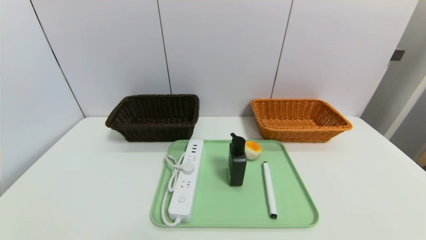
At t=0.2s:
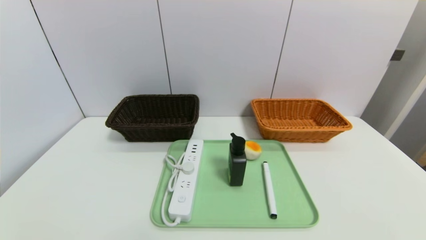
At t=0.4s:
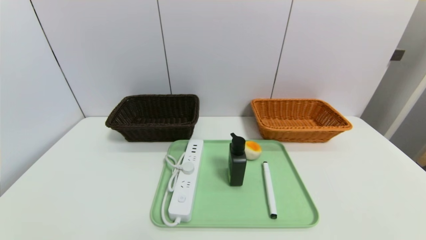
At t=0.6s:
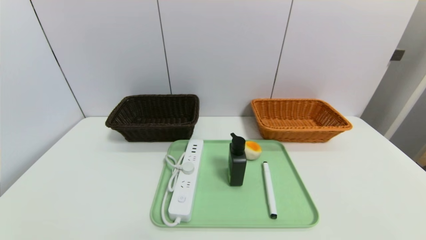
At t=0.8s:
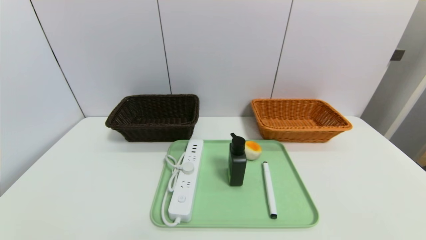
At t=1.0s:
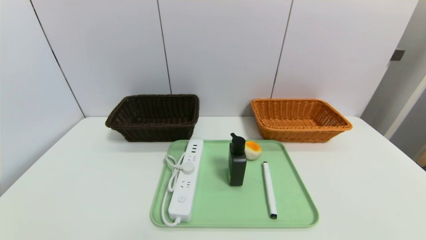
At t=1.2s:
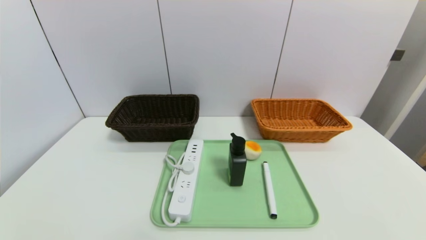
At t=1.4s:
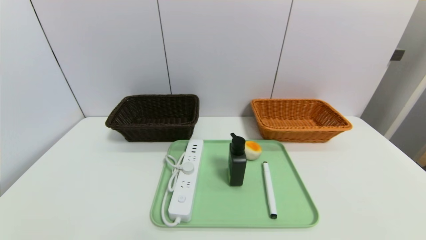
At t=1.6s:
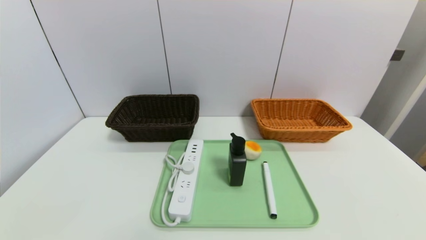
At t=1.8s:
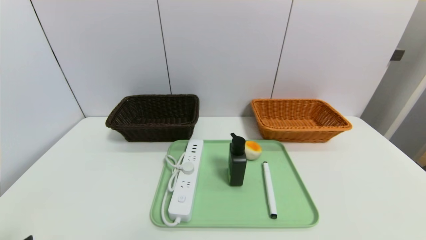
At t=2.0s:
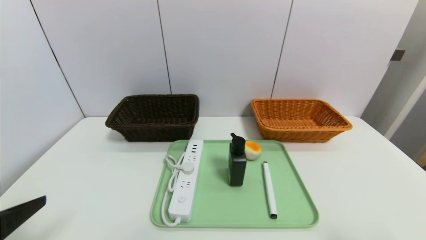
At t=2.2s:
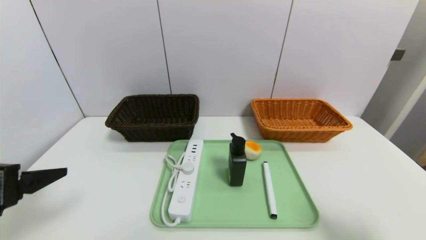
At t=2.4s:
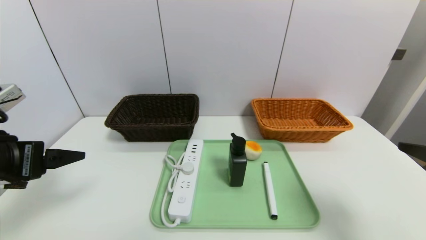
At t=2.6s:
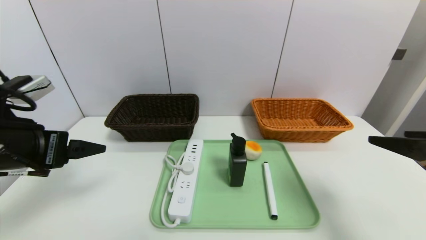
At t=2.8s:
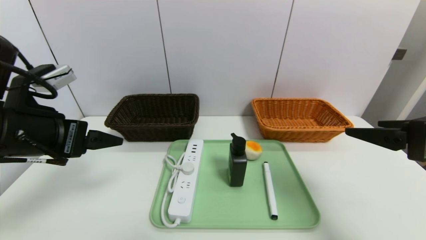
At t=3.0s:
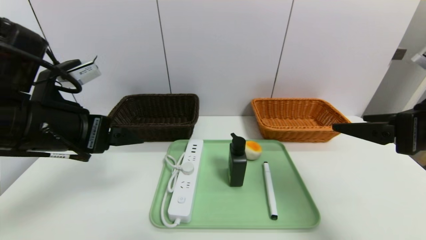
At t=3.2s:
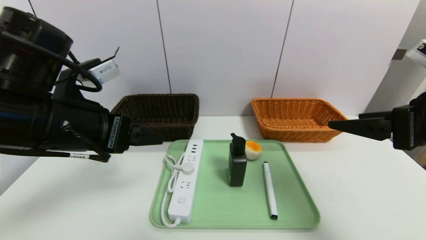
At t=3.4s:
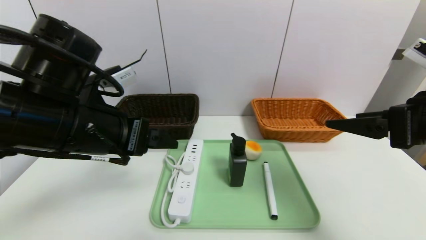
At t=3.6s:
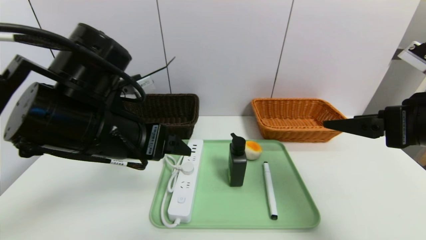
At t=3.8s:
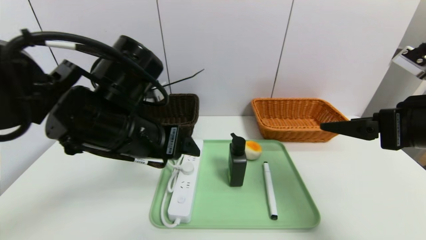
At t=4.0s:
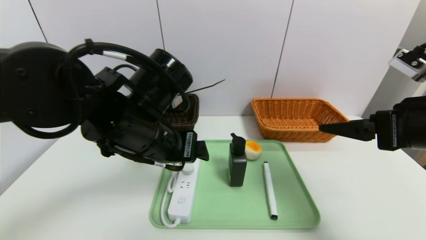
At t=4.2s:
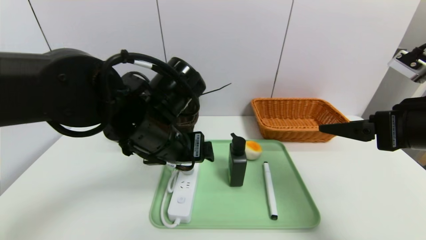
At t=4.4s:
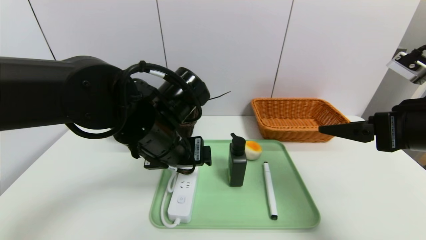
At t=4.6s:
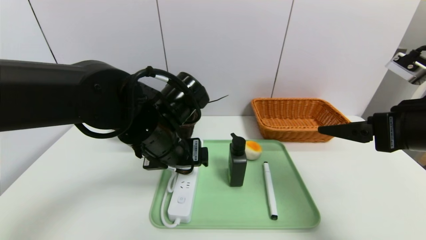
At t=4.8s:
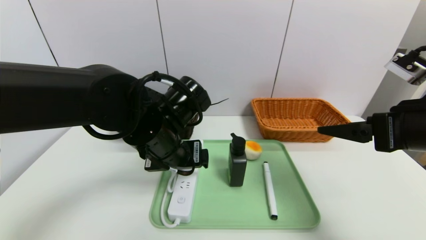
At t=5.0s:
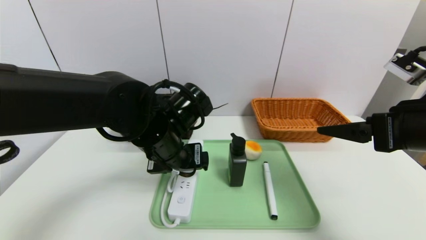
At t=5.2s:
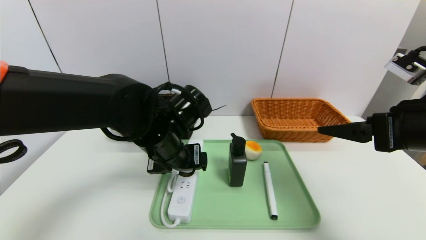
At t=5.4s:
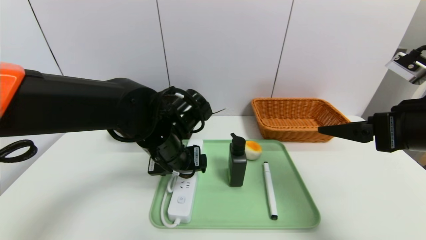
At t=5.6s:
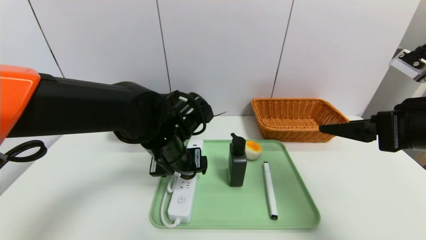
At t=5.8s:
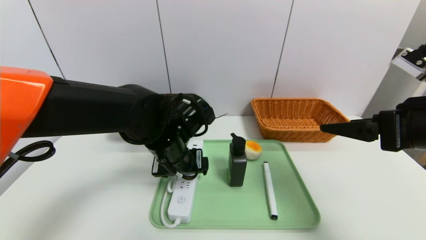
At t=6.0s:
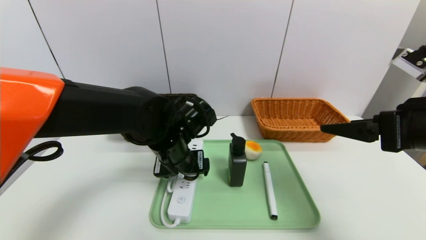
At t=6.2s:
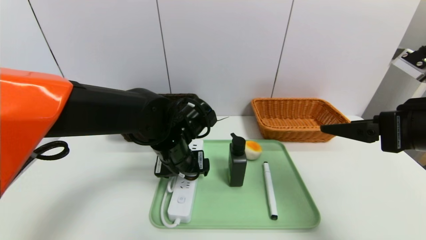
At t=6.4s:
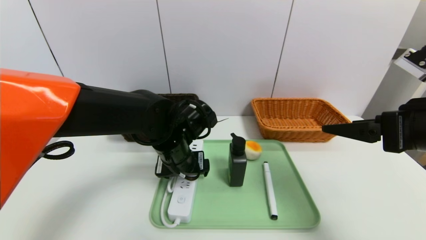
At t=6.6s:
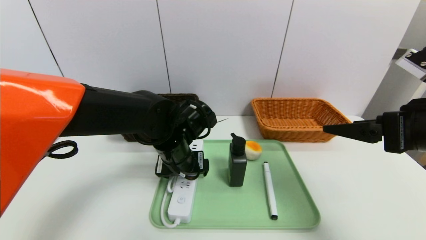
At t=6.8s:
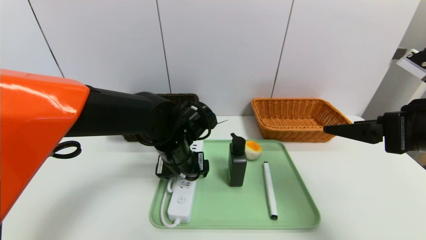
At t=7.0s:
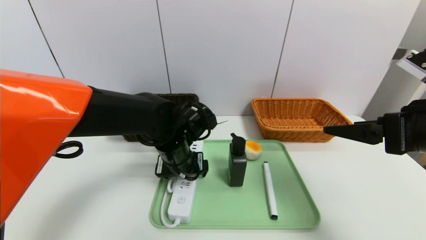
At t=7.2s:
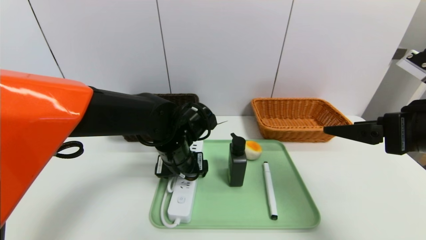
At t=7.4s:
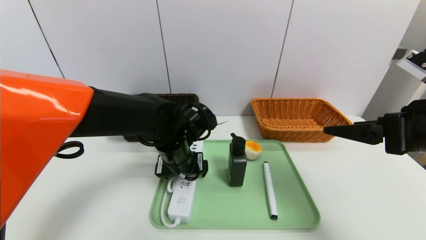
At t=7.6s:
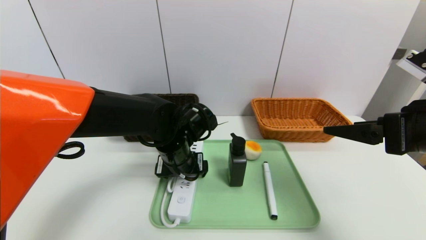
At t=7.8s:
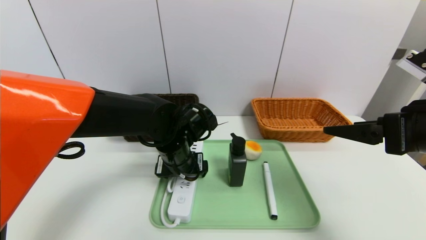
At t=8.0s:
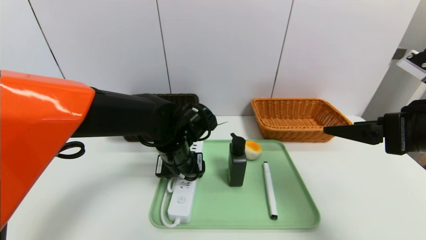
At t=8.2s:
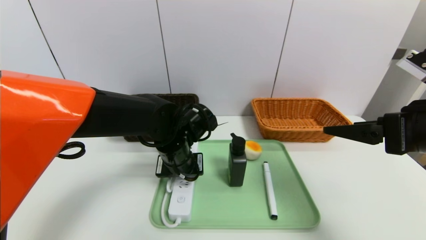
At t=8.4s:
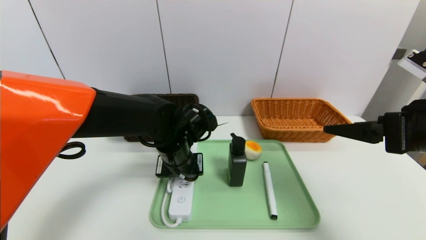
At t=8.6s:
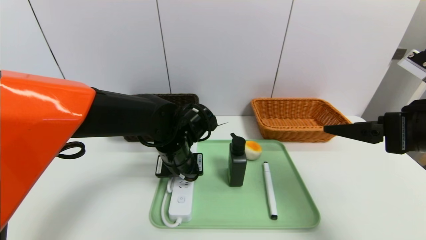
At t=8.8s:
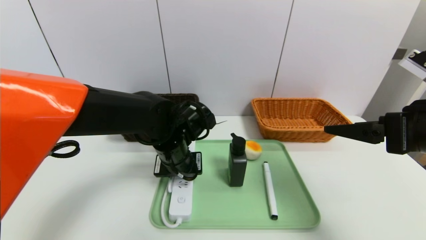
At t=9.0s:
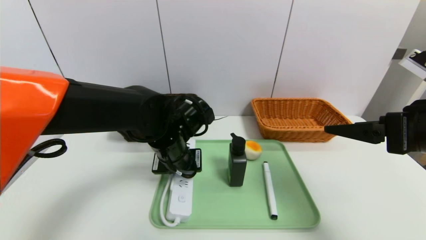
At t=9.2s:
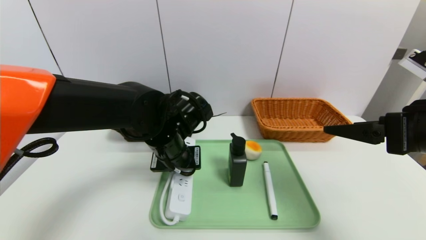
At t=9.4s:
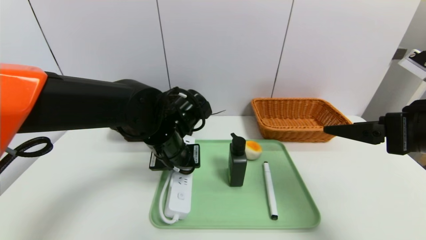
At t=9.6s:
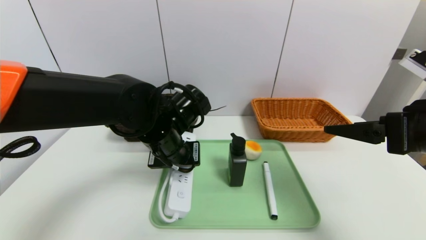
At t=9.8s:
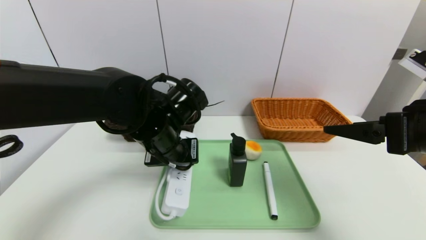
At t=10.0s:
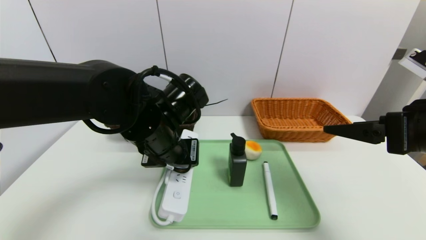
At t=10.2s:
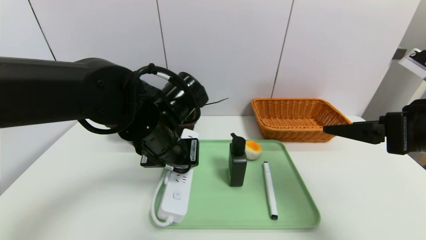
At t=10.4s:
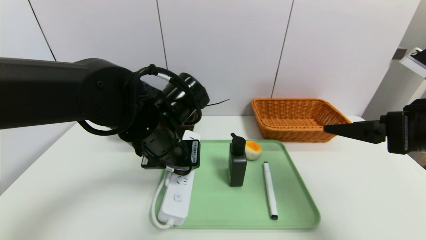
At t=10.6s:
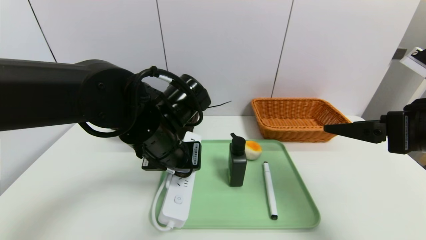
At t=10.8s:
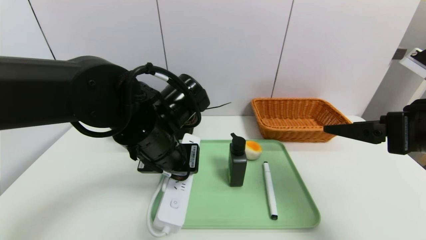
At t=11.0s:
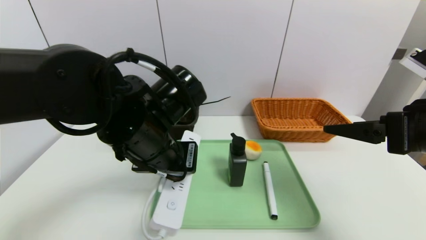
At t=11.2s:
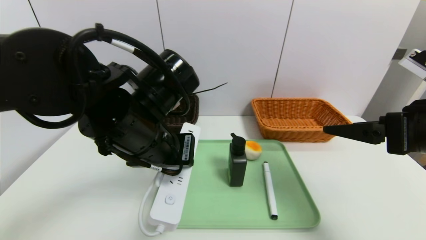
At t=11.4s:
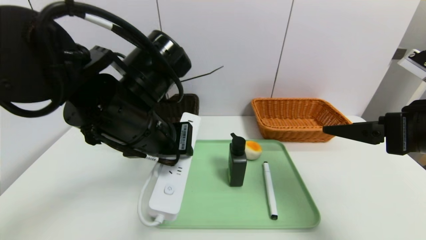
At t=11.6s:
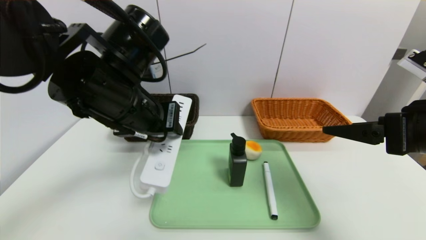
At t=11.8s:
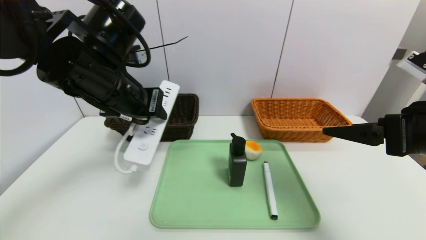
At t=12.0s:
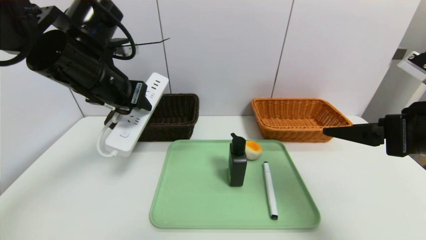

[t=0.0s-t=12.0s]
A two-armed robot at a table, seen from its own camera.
Task of the whole recording: place the food in the right basket with the right gripper, and place the non food items in the left basket with the left gripper.
t=1.6s to t=3.0s: The two grippers go approximately 25 cm forward and upward.
t=3.0s to t=4.4s: The left gripper moves to the right, some 15 cm.
t=4.4s to t=6.0s: The left gripper moves downward, some 5 cm.
t=6.0s to t=7.6s: The grippers move only a little.
t=7.6s to t=9.0s: The left gripper closes its fingers.
t=9.0s to t=10.4s: The left gripper shifts by some 5 cm.
t=10.4s to t=12.0s: The left gripper heads to the left and upward, covering about 15 cm.

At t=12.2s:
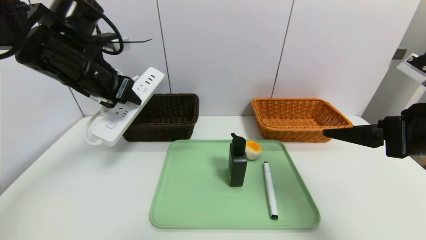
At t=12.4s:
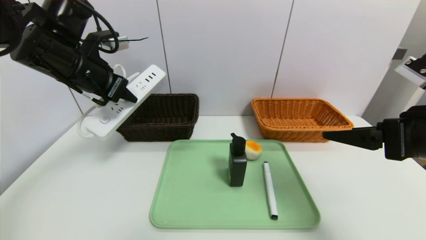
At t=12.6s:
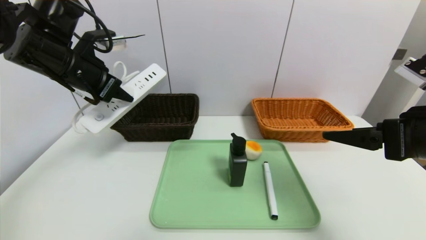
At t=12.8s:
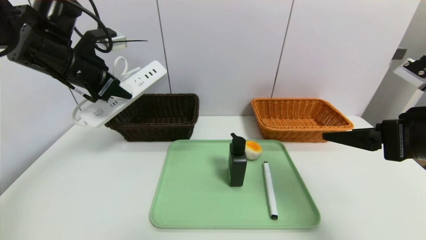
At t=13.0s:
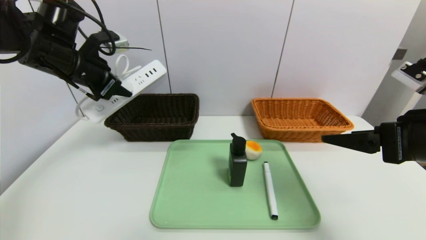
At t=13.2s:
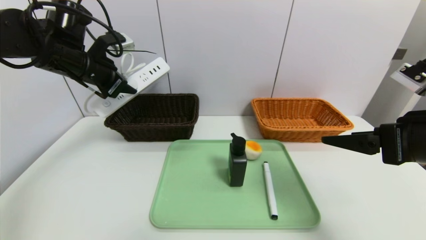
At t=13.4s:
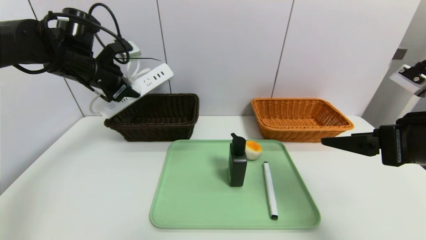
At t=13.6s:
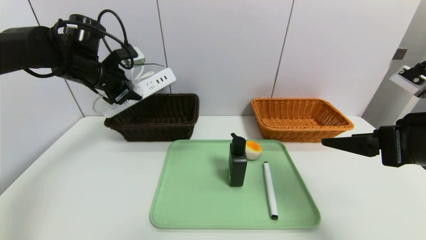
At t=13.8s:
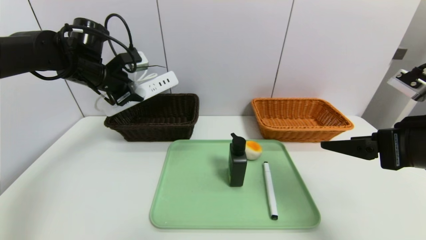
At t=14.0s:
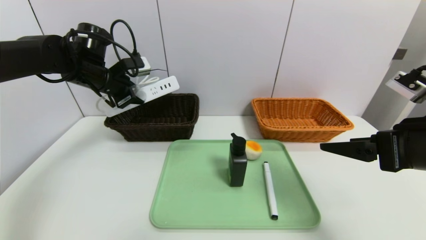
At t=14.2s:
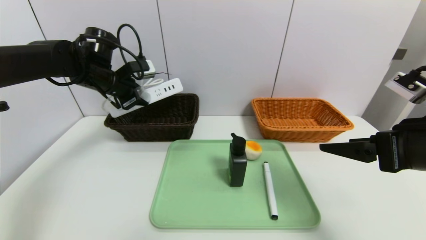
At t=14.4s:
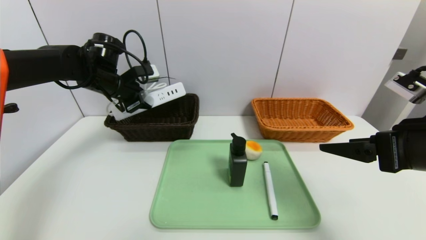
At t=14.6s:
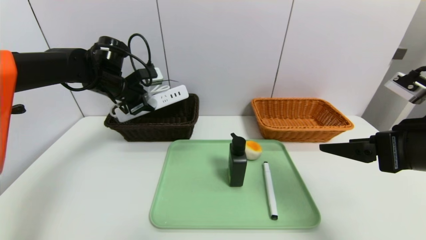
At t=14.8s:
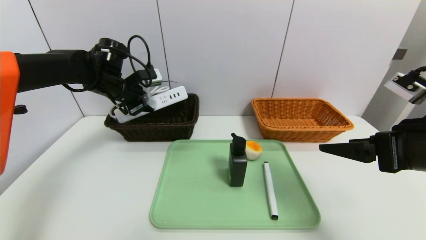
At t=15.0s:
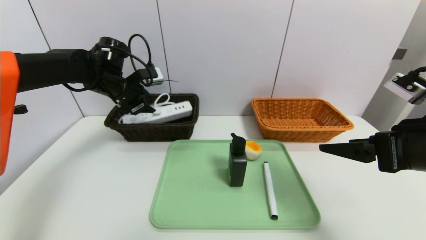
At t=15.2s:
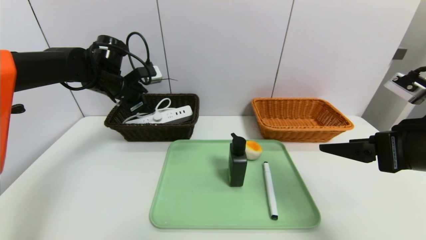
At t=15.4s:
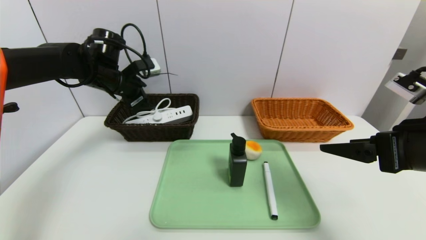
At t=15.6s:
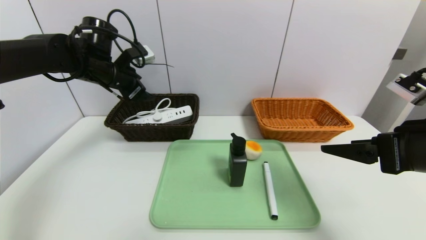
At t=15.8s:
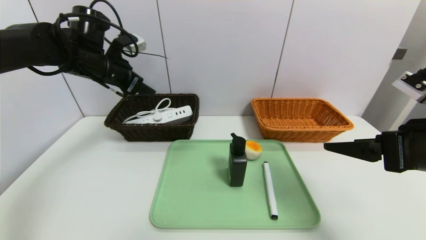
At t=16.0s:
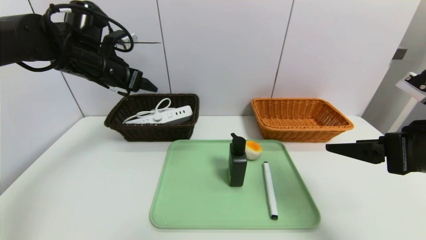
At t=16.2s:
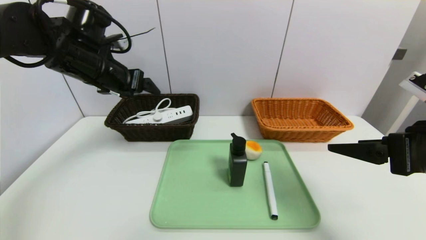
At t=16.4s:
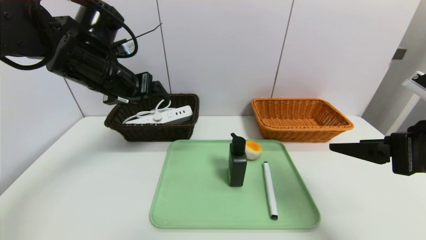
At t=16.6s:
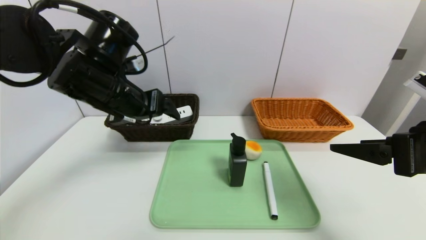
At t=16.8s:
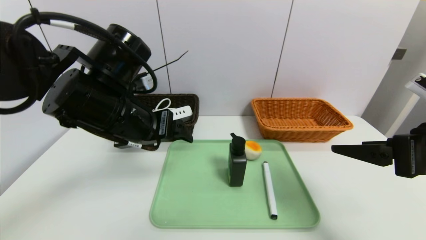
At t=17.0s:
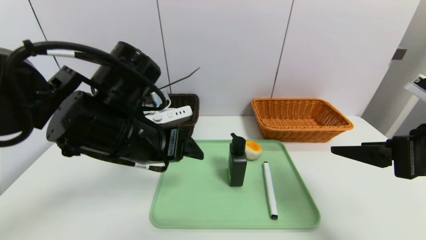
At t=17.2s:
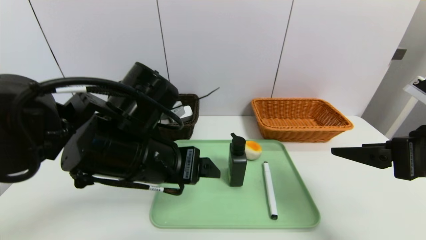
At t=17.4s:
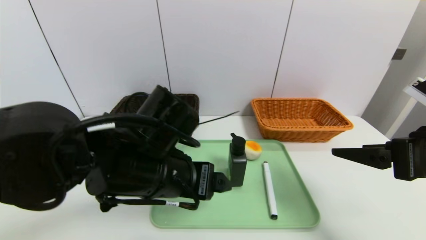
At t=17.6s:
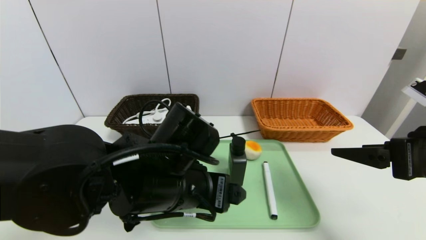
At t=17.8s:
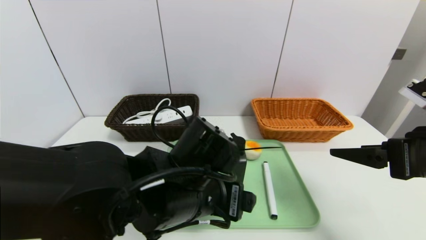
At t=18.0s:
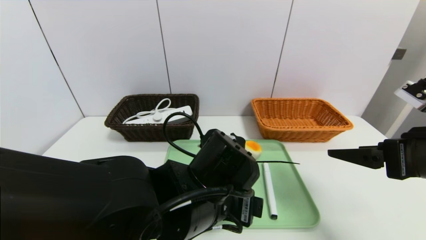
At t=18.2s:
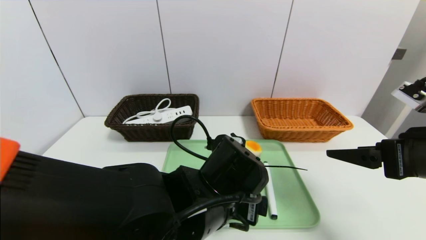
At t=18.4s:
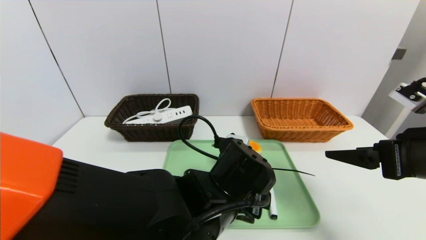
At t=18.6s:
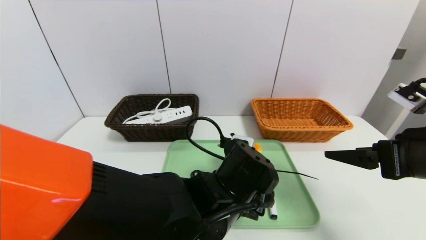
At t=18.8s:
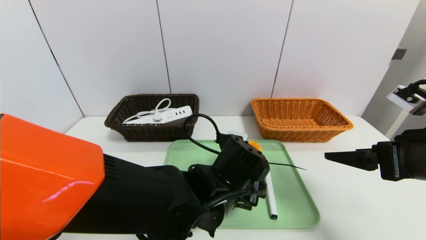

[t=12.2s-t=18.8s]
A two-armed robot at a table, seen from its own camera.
Task of the whole recording: place the food in the right basket with the right gripper, and place the non food items in the left basket with the left gripper.
Step, t=12.2s to t=15.6s: Grasp the power strip and put it in the left basket.
t=12.2s to t=13.8s: The left gripper is displaced forward by about 10 cm.
t=13.8s to t=15.4s: The left gripper opens its fingers.
t=15.4s to t=17.2s: The left gripper goes some 25 cm backward and to the right.
t=17.2s to t=18.8s: The left gripper shifts about 15 cm to the right and downward.
